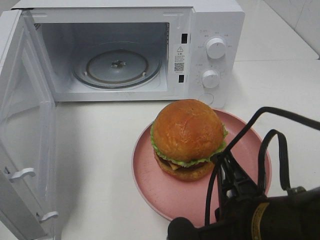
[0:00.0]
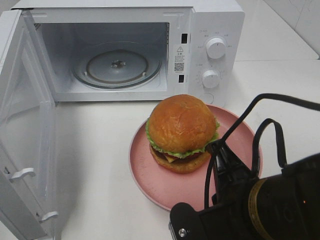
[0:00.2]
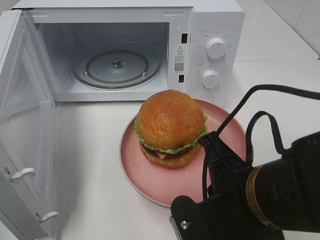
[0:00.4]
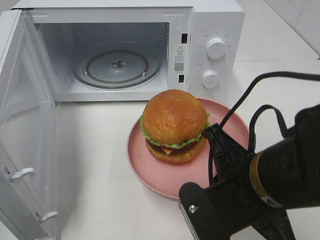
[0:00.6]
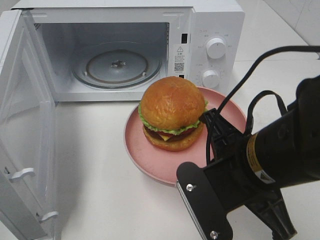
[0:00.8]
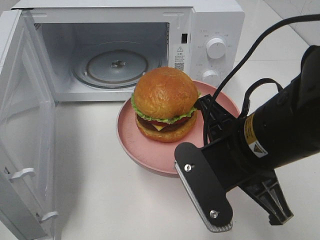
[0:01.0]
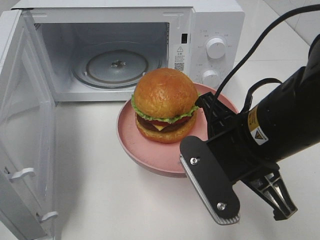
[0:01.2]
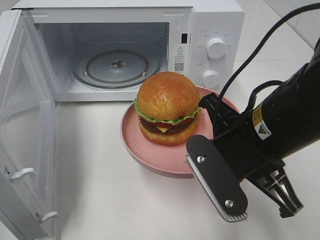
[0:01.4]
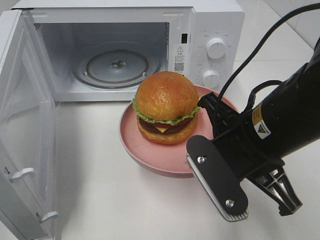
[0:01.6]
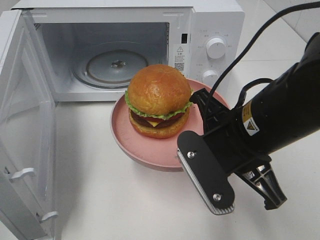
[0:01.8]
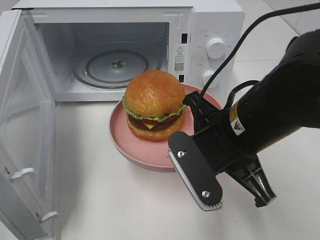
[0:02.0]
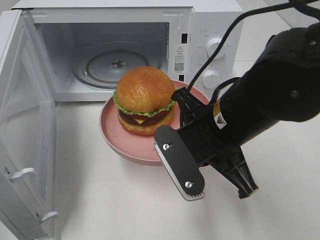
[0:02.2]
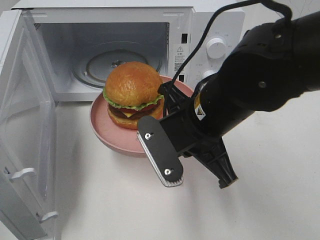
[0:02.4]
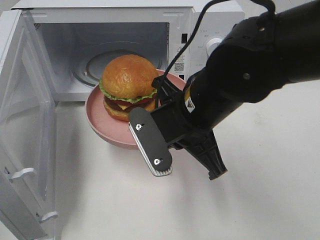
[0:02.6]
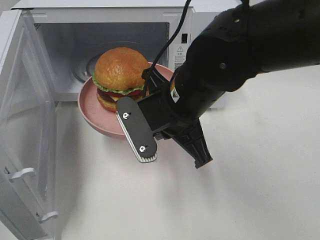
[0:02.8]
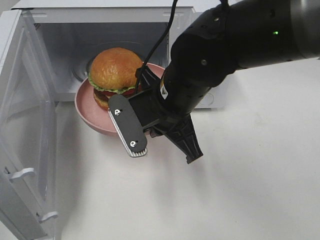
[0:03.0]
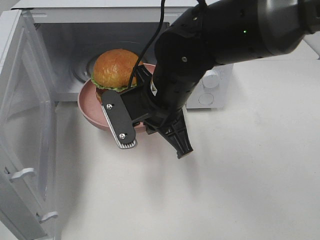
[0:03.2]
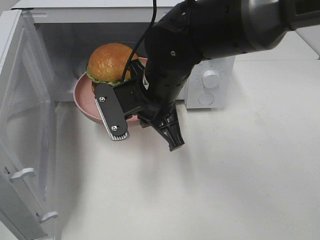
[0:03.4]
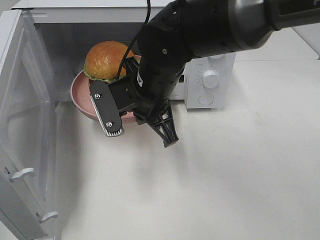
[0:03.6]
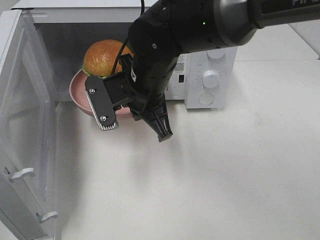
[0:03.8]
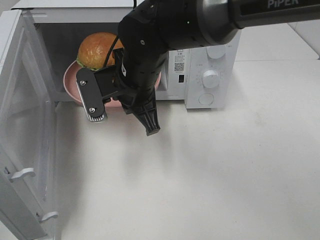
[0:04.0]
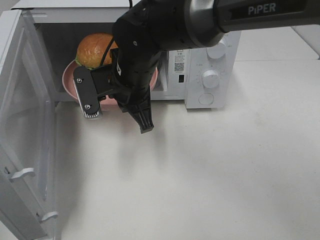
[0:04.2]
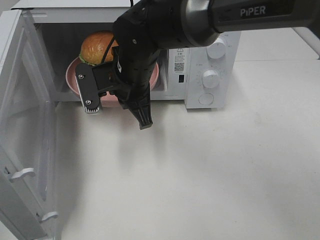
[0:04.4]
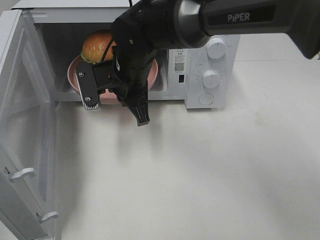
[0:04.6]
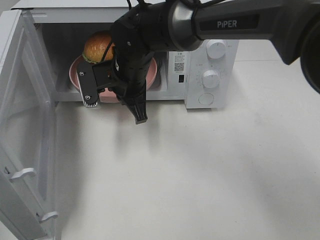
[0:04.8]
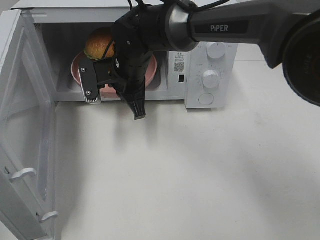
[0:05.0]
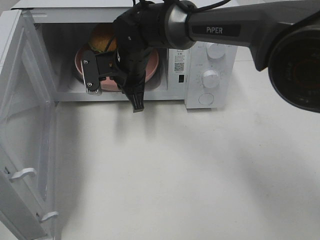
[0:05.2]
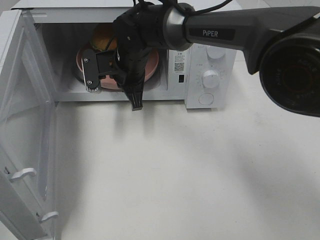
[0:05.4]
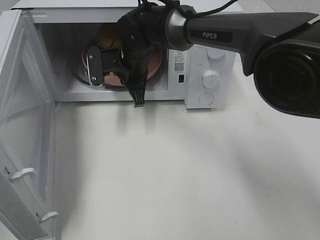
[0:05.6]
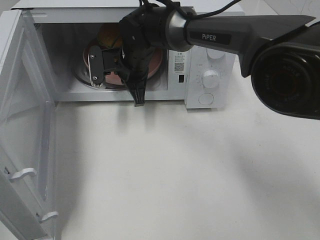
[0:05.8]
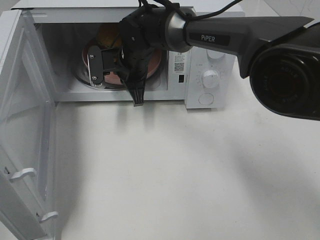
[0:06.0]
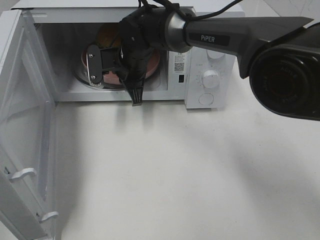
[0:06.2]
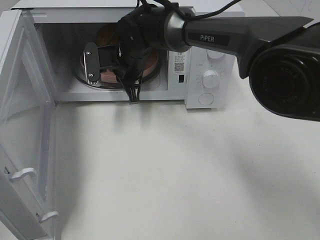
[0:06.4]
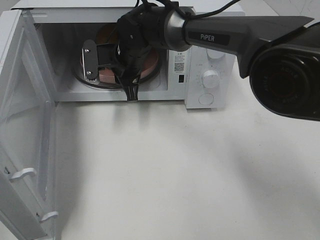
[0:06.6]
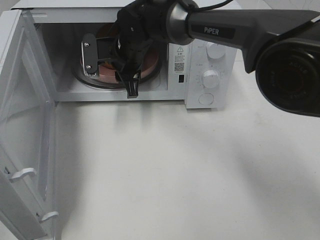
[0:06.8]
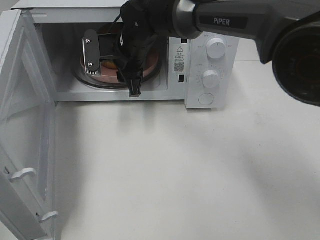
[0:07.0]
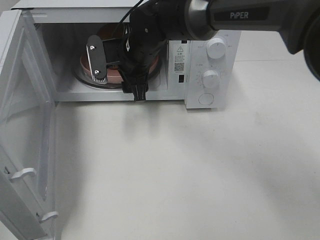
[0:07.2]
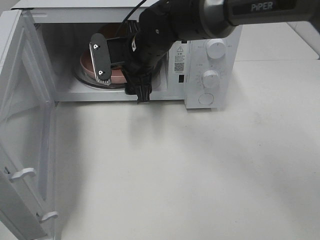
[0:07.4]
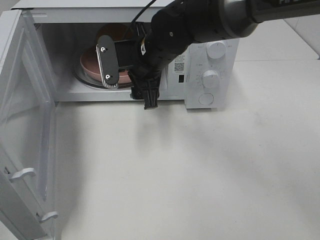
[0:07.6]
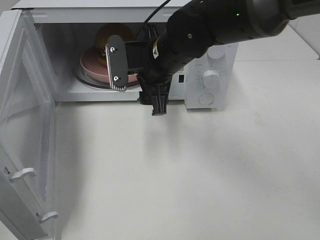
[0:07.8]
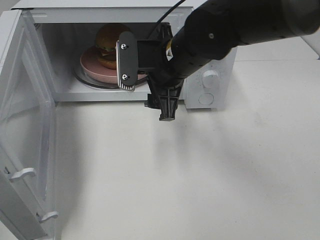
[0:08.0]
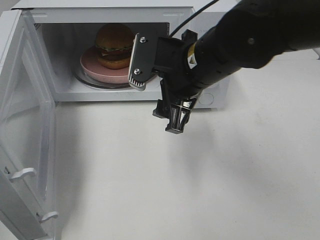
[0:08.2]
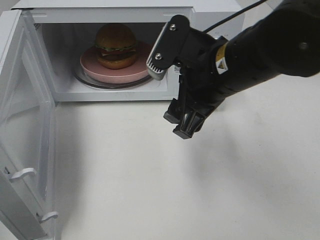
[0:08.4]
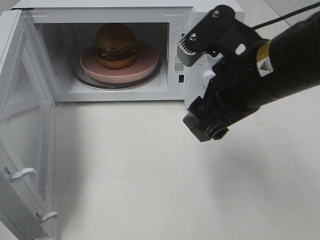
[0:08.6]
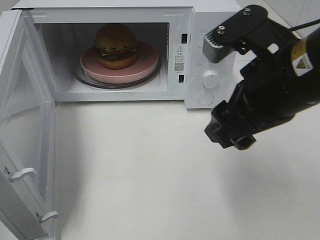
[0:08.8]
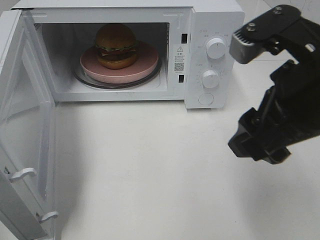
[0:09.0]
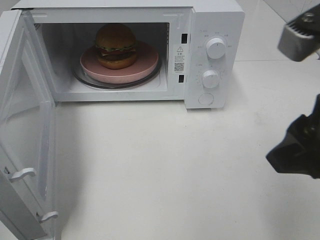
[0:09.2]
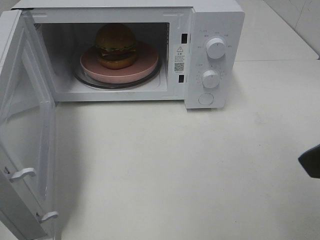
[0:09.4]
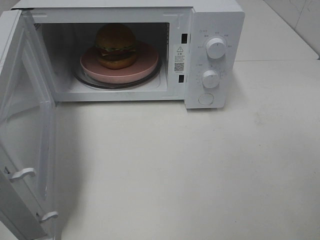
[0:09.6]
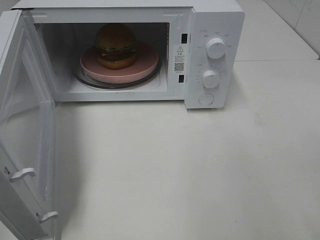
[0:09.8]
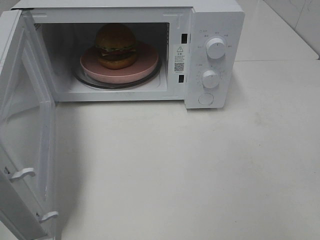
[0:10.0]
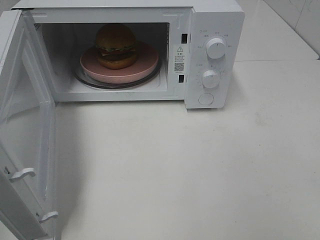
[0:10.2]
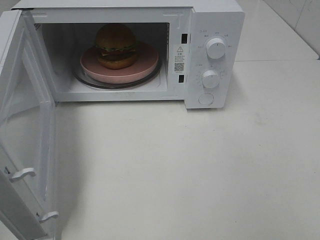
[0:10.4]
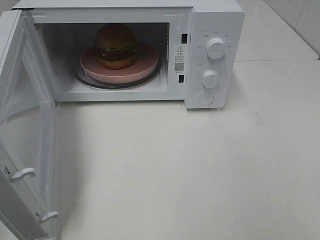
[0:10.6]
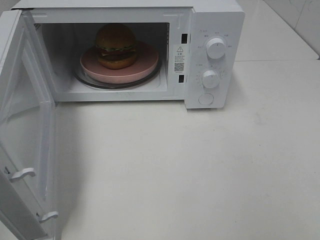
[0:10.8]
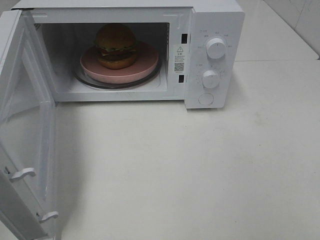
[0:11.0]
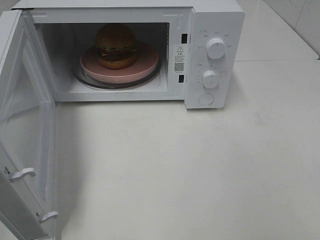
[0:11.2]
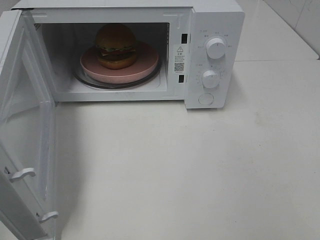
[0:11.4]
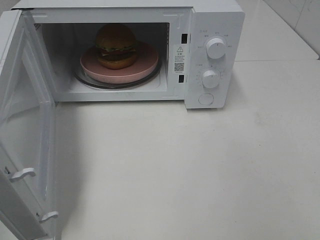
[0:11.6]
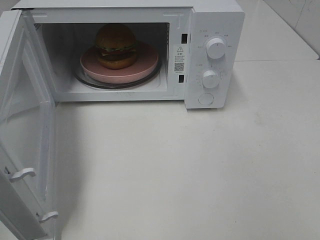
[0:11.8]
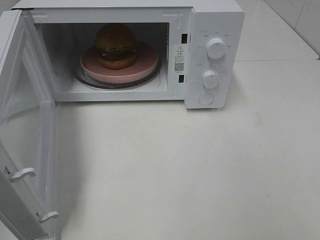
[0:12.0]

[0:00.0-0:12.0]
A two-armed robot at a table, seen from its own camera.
Task of the whole recording: Heat the burger.
Step, 0:00.0 to 0:06.6: Right hand: place the plate in the microwave.
0:00.0 to 0:01.6: The right gripper shifts some 10 cm forward.
0:01.6 to 0:03.0: The right gripper heads to the left and forward, covering roughly 10 cm.
0:03.0 to 0:04.4: The right gripper is displaced forward and to the left by roughly 10 cm.
0:04.4 to 0:06.0: The right gripper moves forward, approximately 10 cm.
0:06.0 to 0:07.6: The right gripper heads backward, covering some 5 cm, and opens its fingers.
0:07.6 to 0:09.0: The right gripper travels backward, to the right and upward by about 25 cm.
0:09.0 to 0:10.4: The right gripper shifts approximately 20 cm backward and to the right.

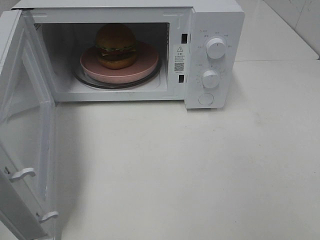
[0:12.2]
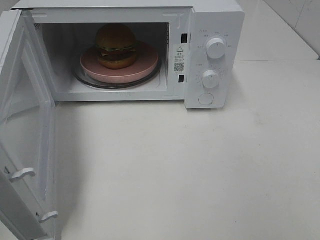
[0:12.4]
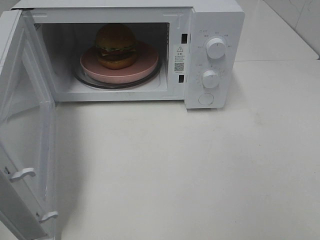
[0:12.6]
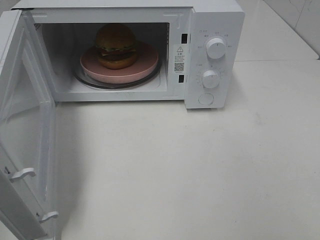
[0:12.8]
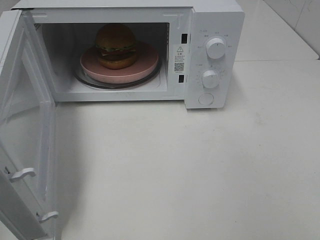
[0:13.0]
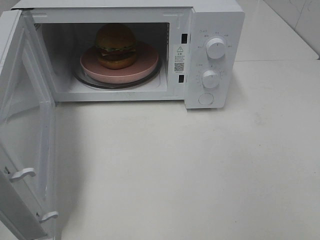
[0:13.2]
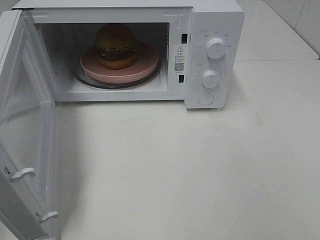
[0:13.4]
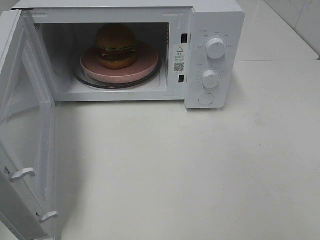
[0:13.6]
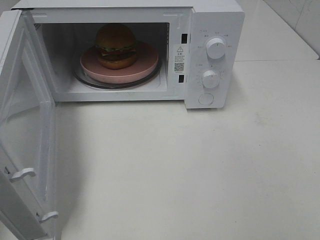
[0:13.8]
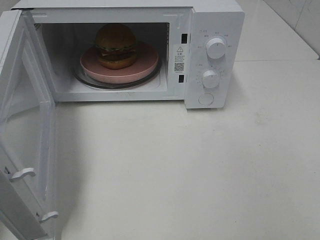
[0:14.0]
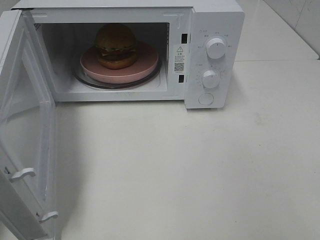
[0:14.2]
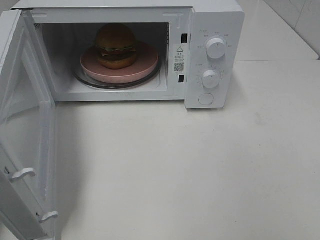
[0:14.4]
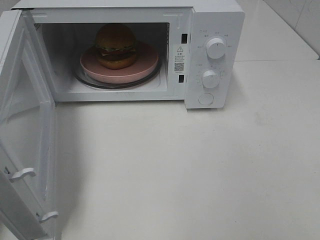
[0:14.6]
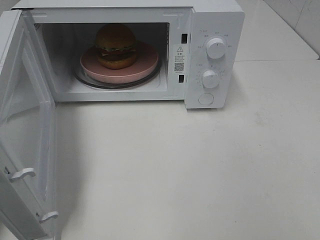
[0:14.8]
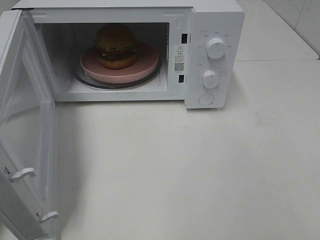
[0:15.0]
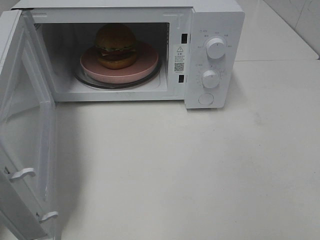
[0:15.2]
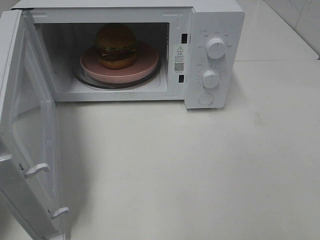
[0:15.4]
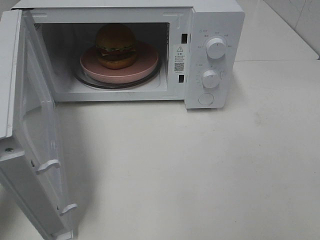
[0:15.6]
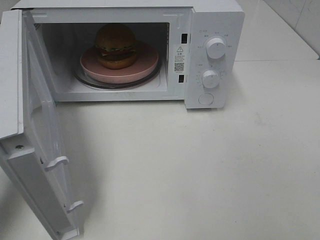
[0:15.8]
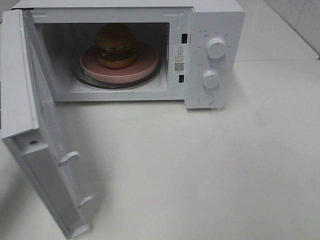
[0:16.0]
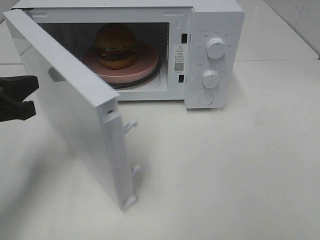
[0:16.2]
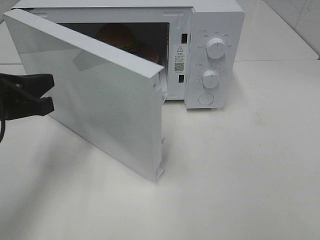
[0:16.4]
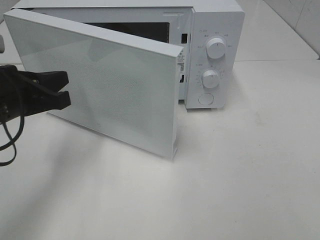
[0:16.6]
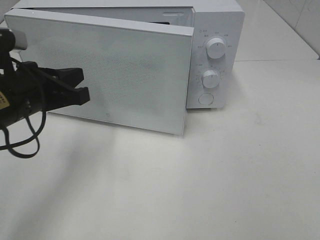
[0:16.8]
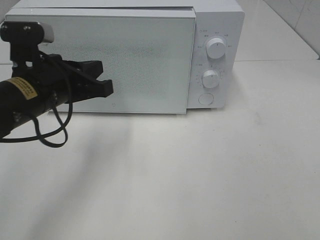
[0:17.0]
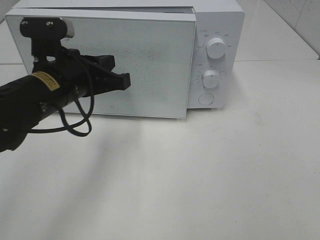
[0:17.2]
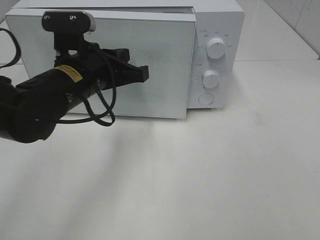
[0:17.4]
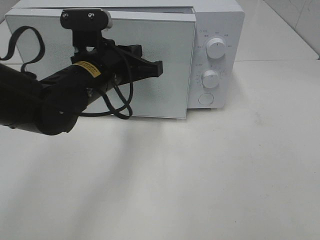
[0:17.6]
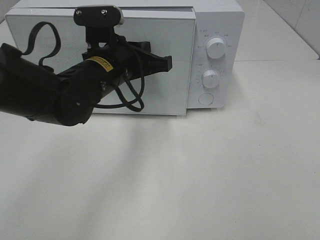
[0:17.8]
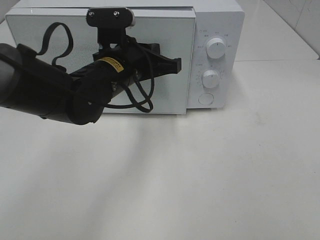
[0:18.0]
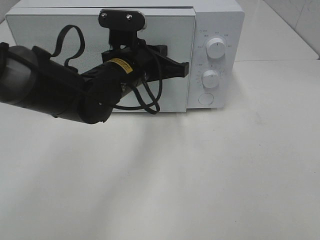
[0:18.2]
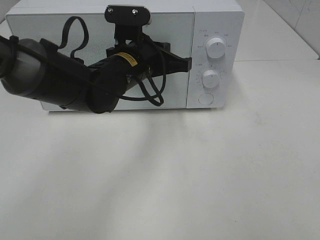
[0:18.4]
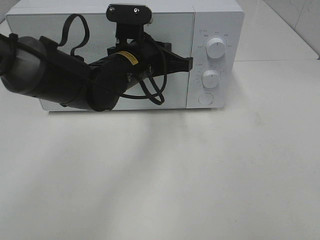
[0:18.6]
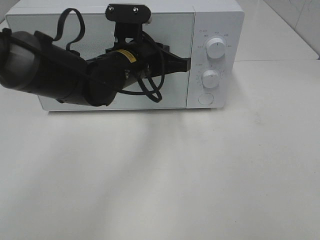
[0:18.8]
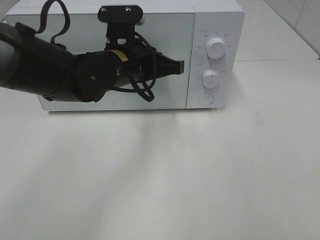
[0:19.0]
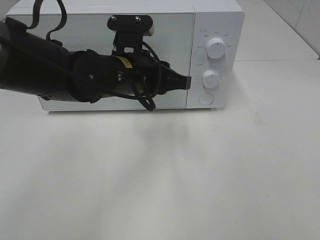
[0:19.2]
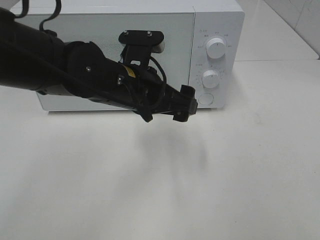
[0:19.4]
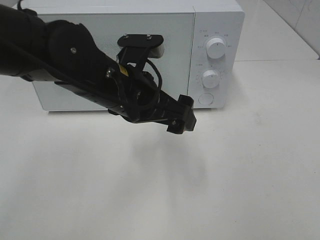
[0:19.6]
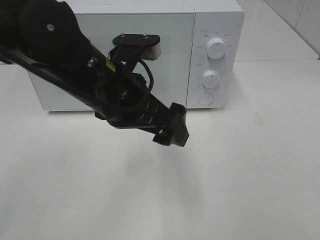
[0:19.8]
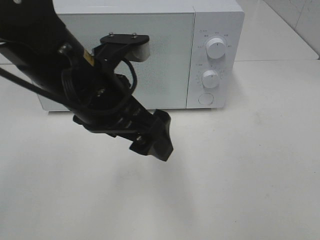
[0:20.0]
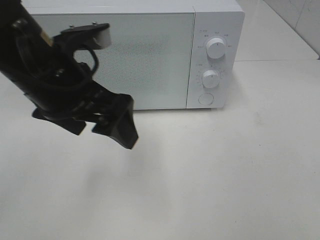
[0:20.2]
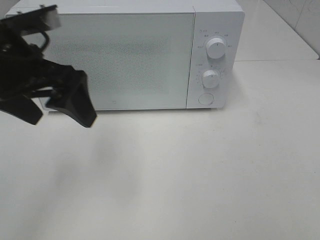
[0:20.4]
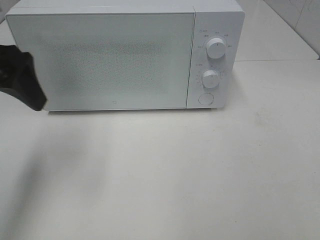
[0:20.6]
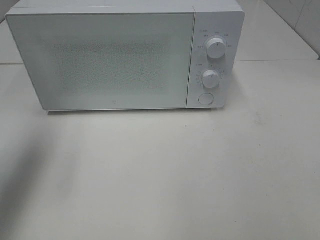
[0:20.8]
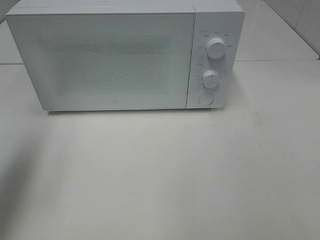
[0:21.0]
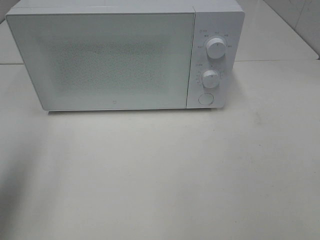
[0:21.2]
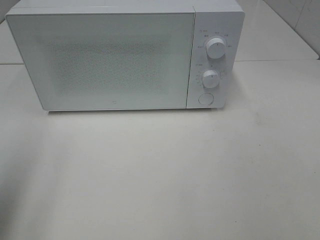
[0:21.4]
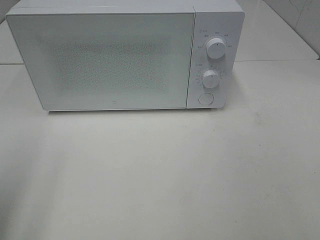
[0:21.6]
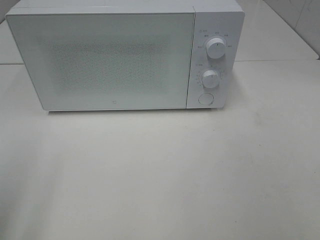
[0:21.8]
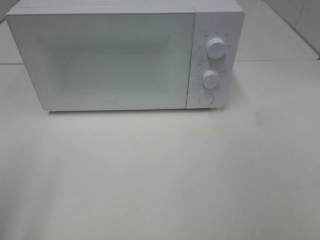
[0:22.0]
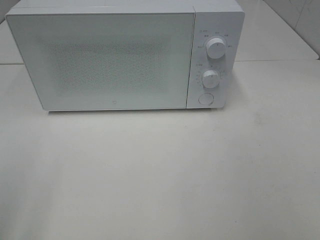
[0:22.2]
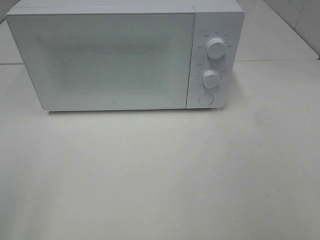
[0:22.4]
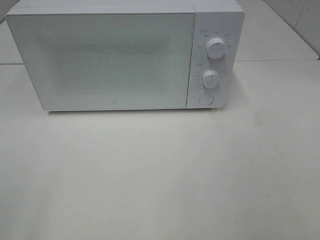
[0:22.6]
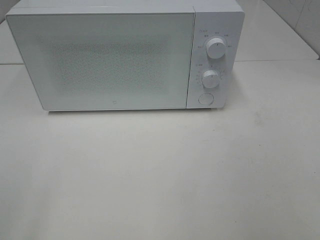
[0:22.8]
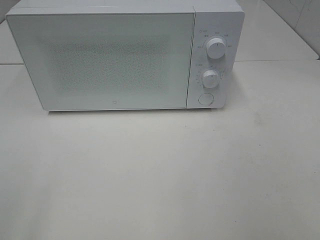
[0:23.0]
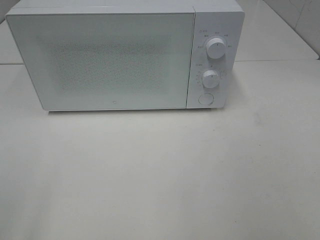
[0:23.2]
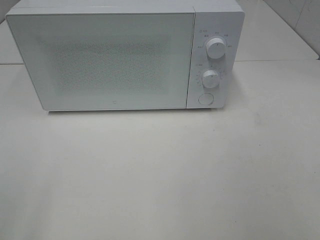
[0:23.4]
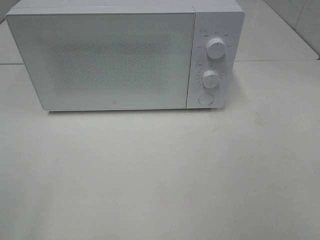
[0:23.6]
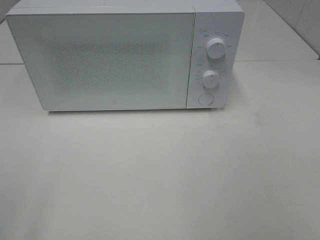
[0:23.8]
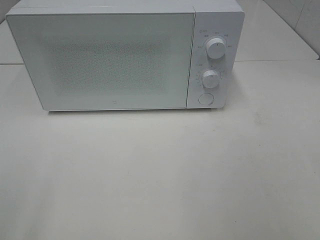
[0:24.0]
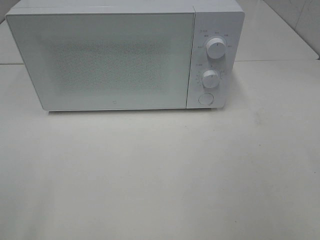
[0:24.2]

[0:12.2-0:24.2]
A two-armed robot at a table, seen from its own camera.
Task of the whole recording: Heat the burger.
Step, 0:12.2 to 0:19.0: Left hand: close the microwave door.
0:15.2 to 0:16.6: The left gripper is displaced to the right and forward by about 10 cm.
0:16.6 to 0:18.2: The left gripper goes approximately 20 cm to the right and forward.
0:18.2 to 0:19.8: The left gripper travels backward and upward by approximately 10 cm, and opens up.
0:19.8 to 0:21.2: The left gripper travels to the left and upward by approximately 25 cm.
0:21.2 to 0:22.6: The left gripper goes approximately 15 cm backward.
